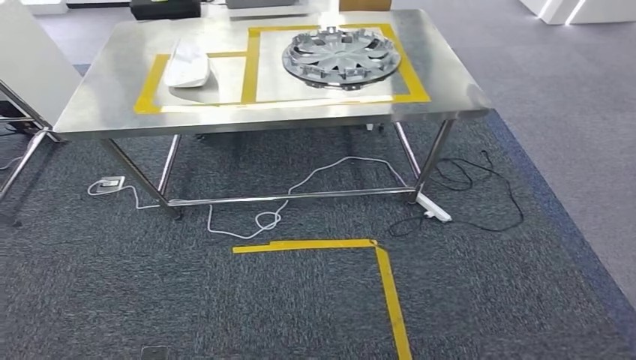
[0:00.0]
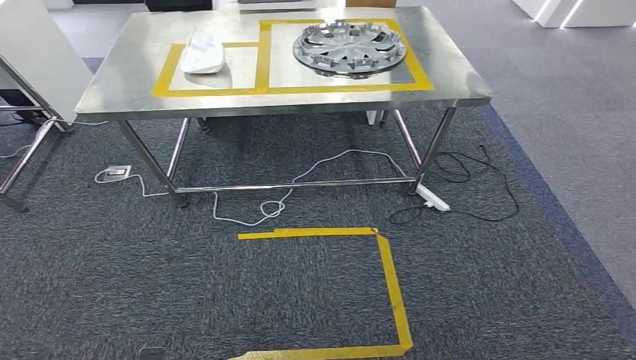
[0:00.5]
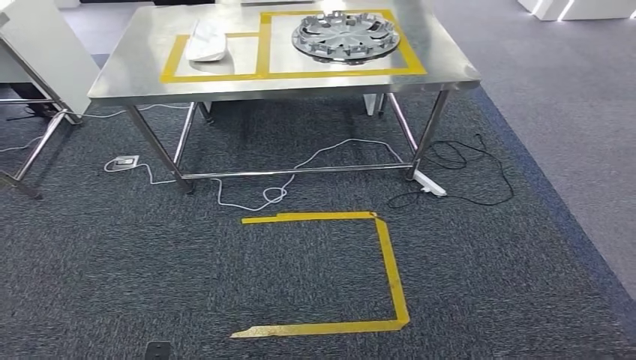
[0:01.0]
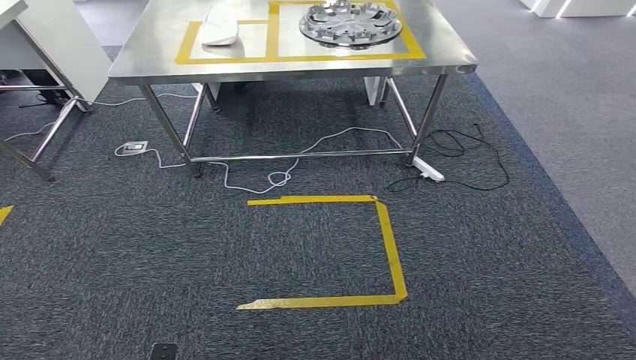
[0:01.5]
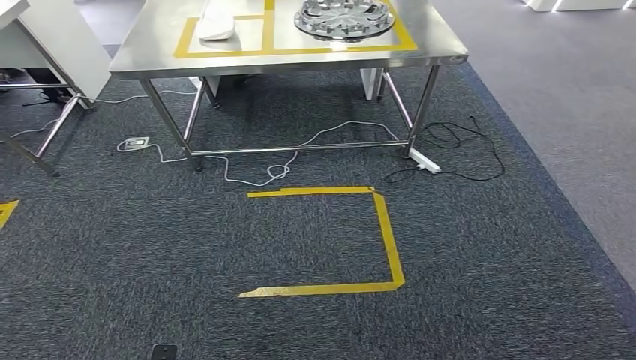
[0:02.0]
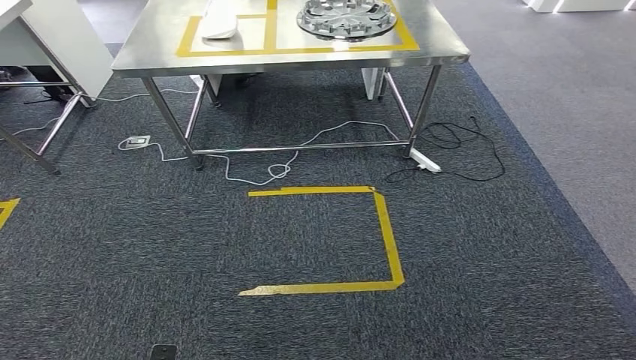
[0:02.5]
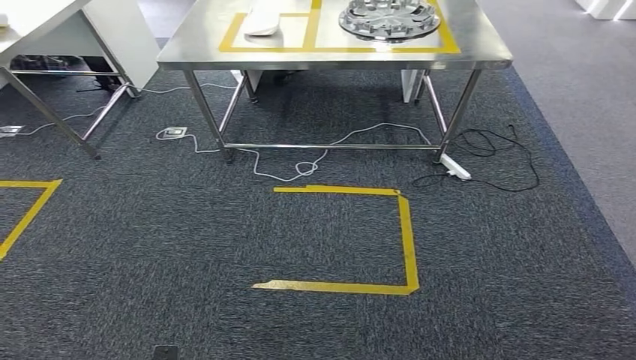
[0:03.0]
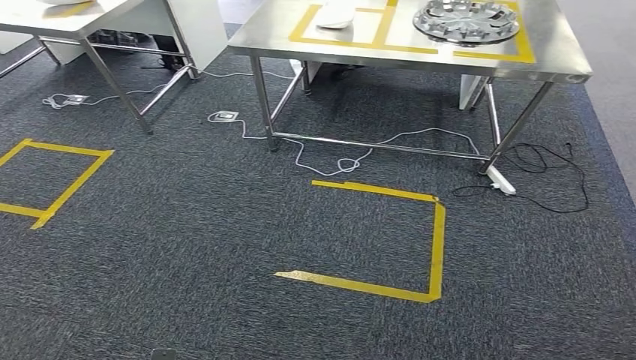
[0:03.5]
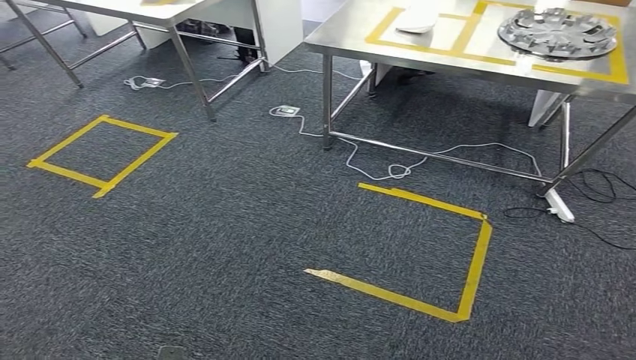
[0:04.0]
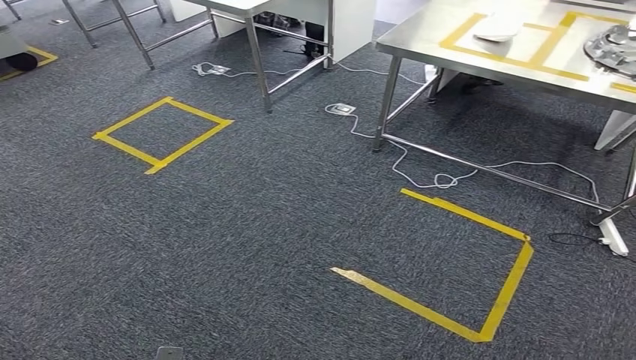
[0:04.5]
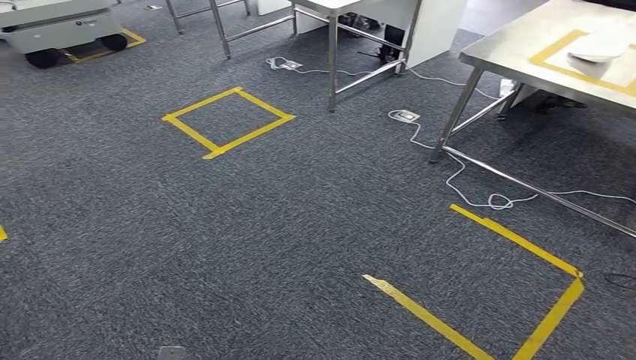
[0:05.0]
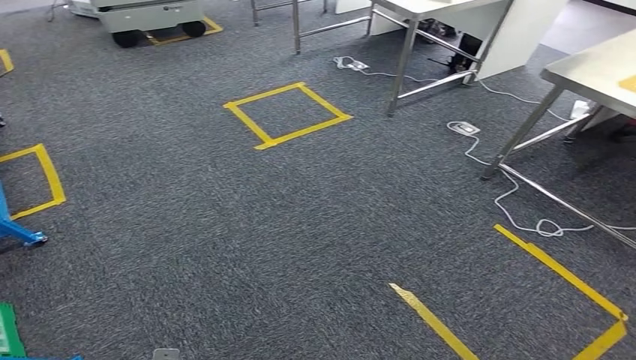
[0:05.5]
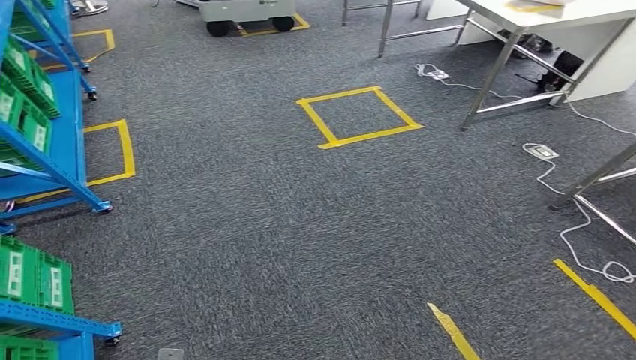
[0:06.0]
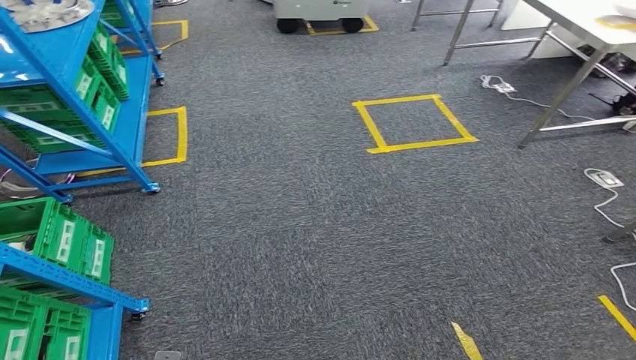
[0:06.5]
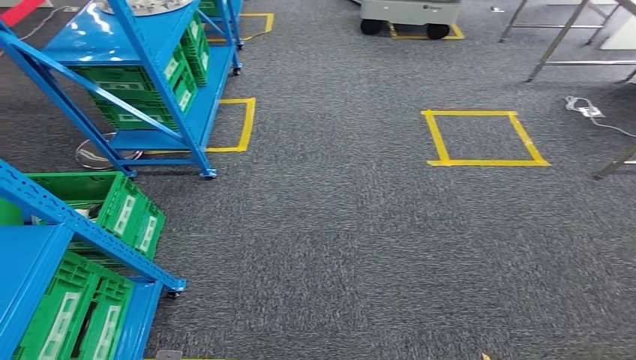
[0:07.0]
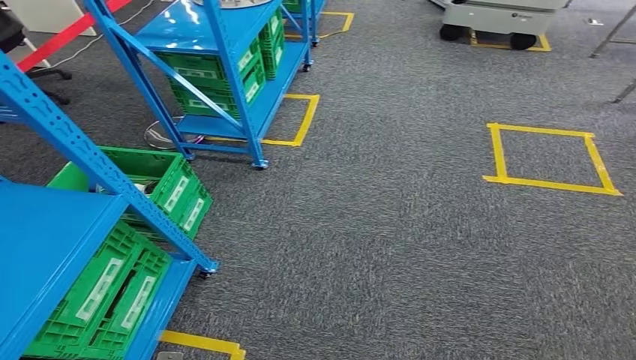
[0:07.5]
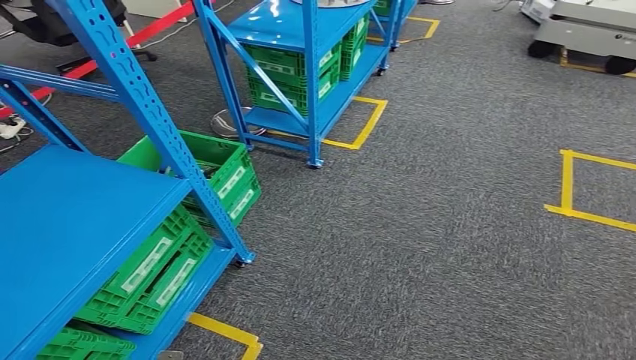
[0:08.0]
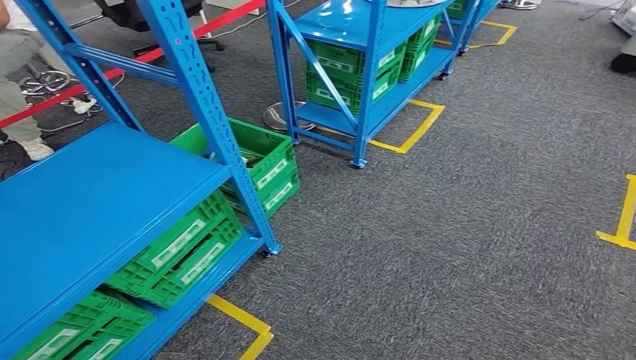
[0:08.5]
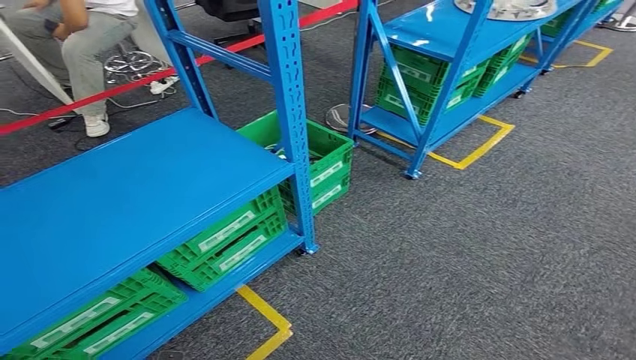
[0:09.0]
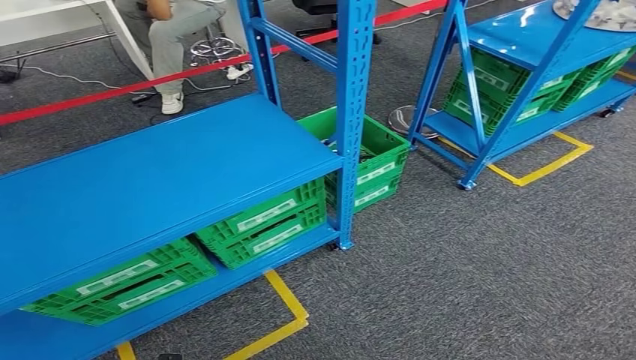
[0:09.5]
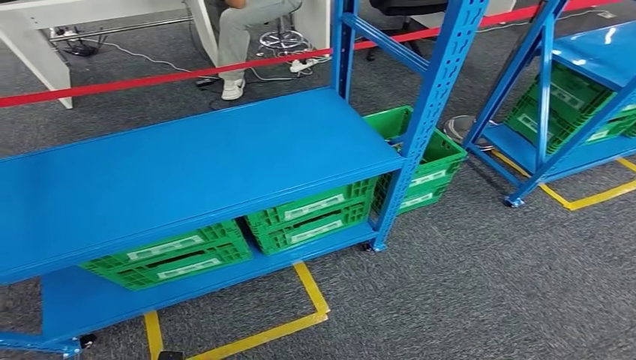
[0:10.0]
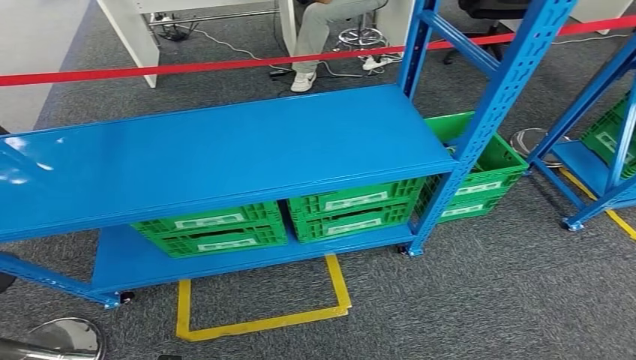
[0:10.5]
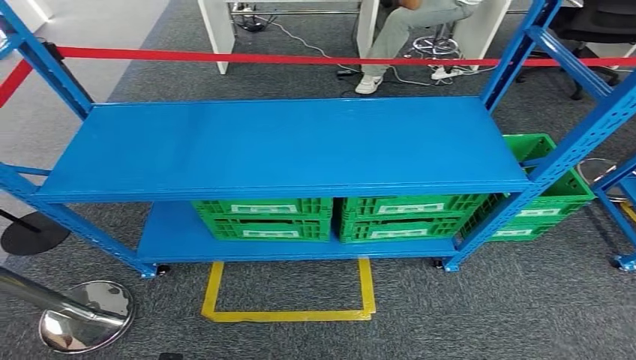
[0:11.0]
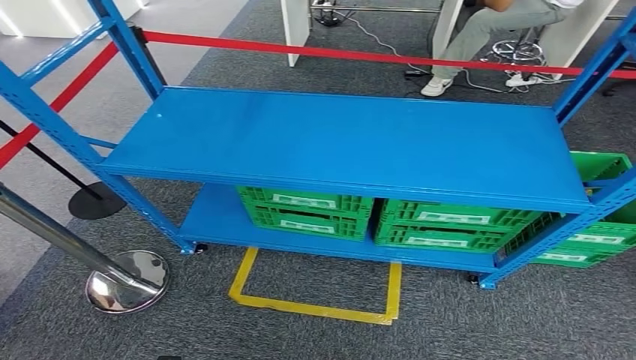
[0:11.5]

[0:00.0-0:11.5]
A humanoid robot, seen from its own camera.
Step, 0:00.0 to 0:11.5: Move to the initial position of the workbench.

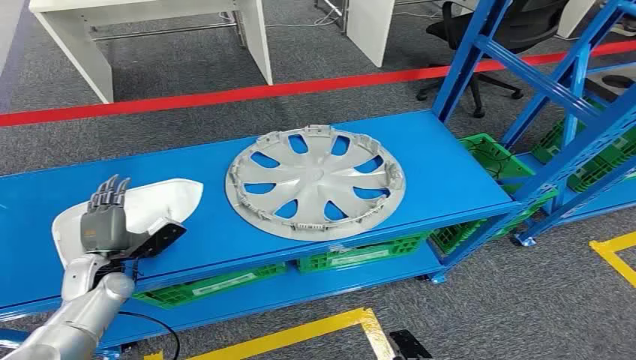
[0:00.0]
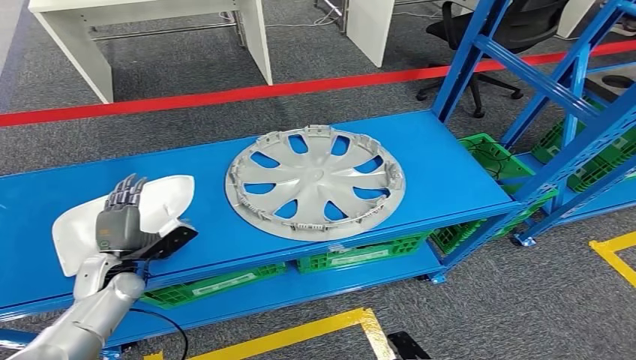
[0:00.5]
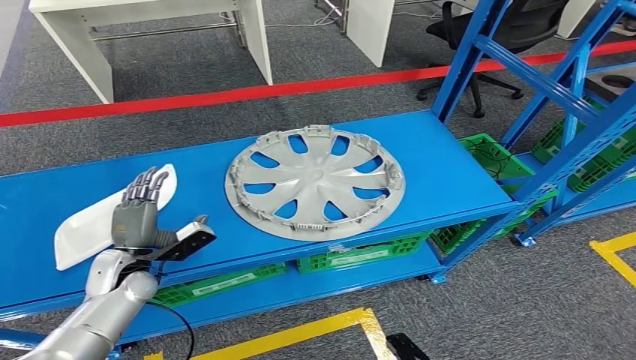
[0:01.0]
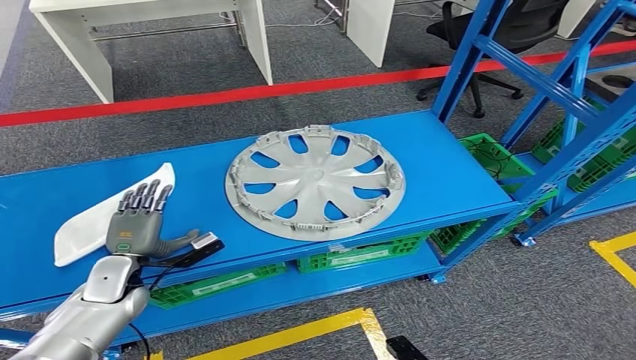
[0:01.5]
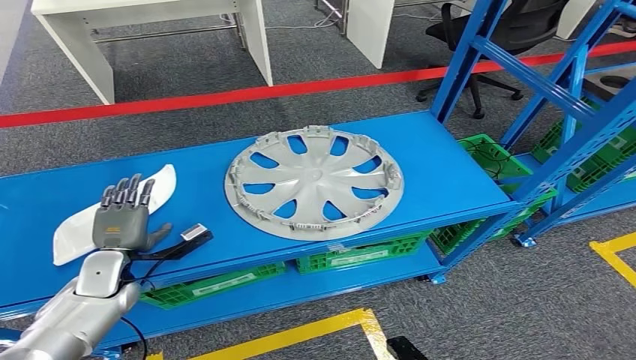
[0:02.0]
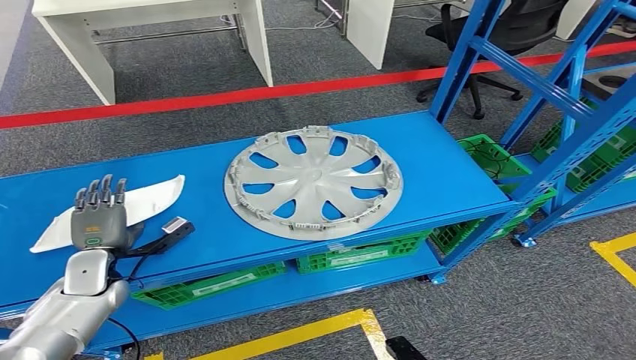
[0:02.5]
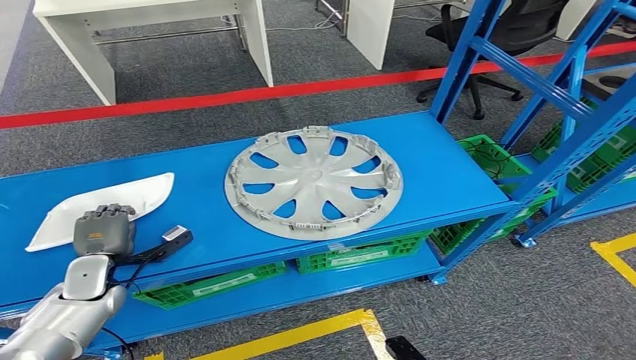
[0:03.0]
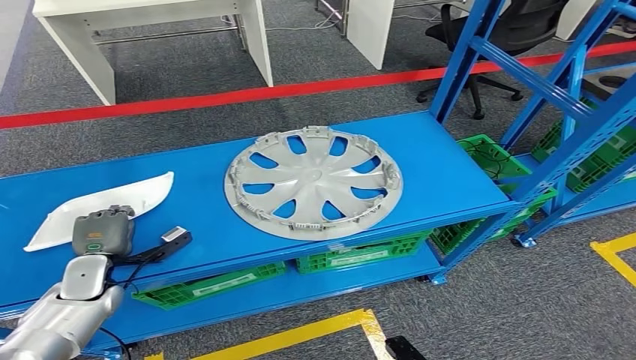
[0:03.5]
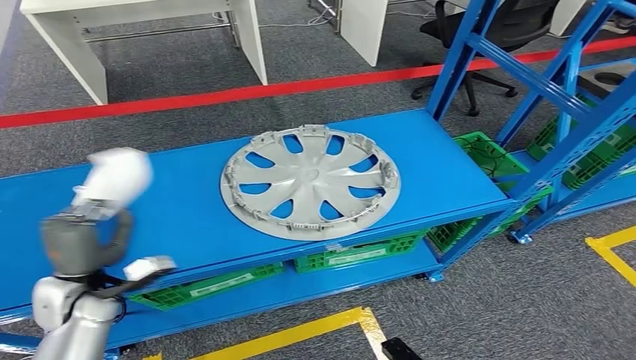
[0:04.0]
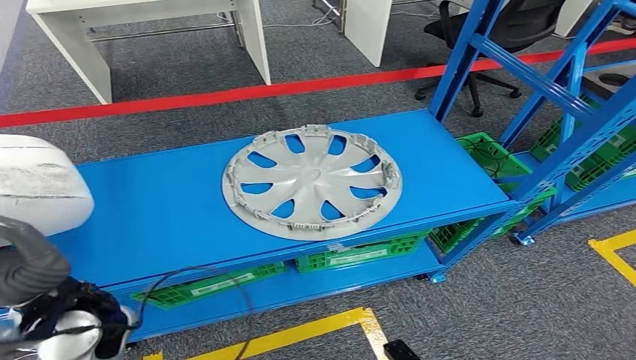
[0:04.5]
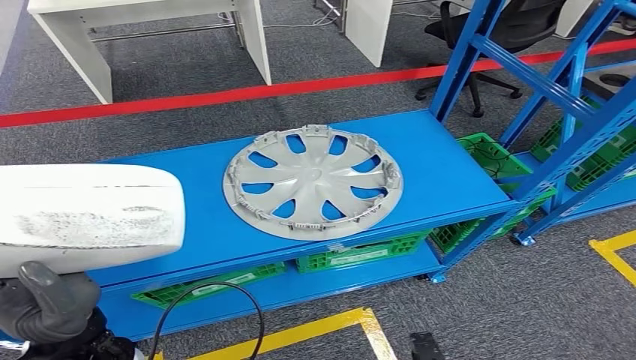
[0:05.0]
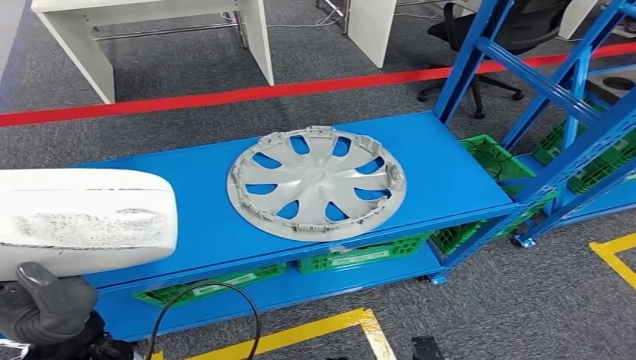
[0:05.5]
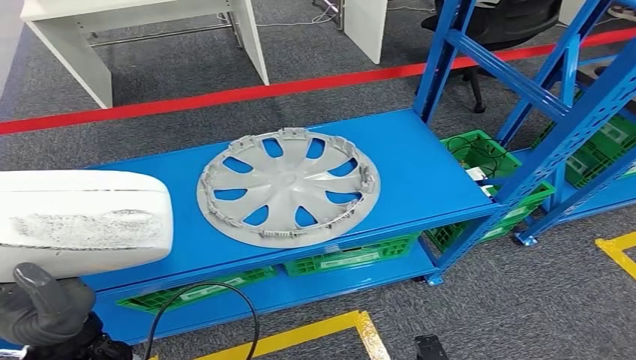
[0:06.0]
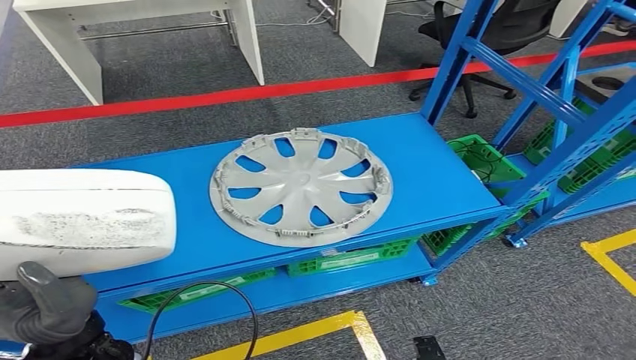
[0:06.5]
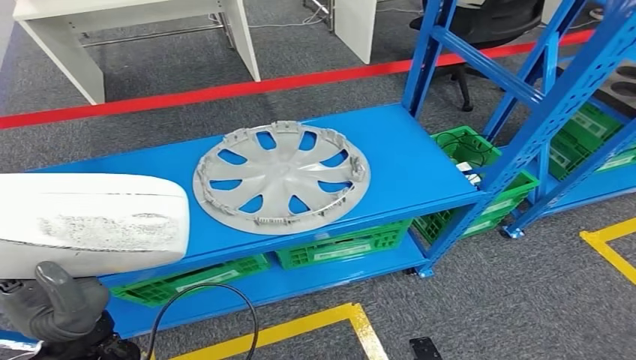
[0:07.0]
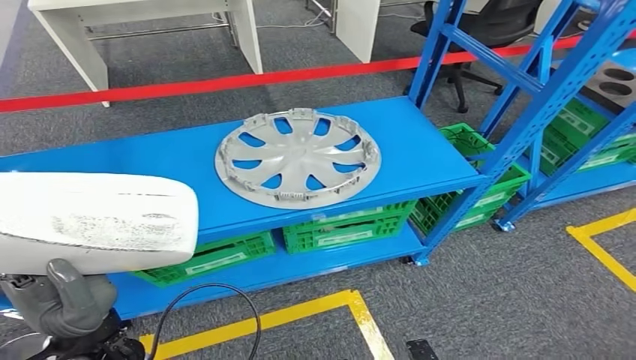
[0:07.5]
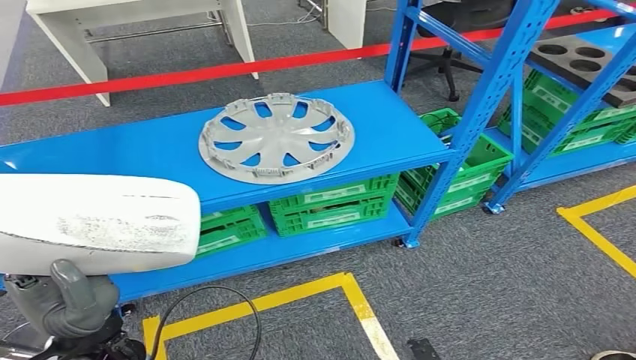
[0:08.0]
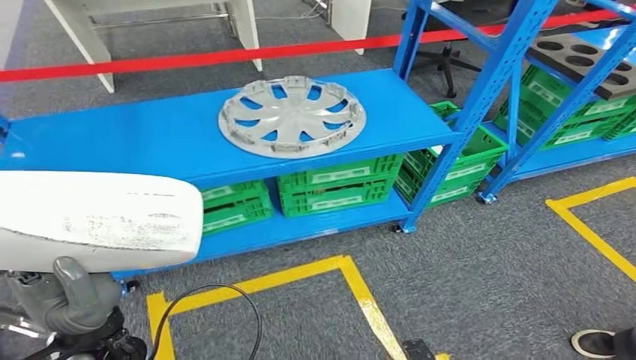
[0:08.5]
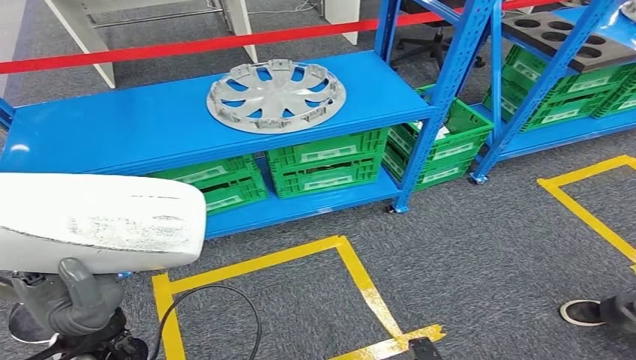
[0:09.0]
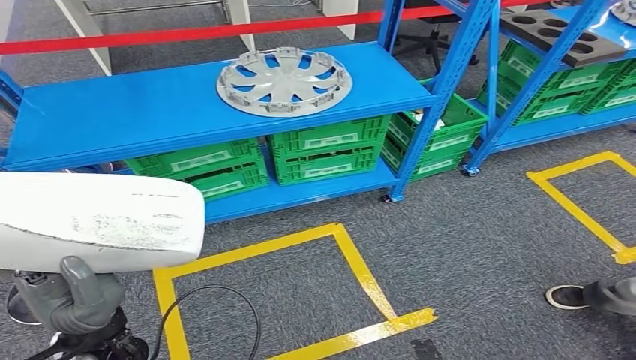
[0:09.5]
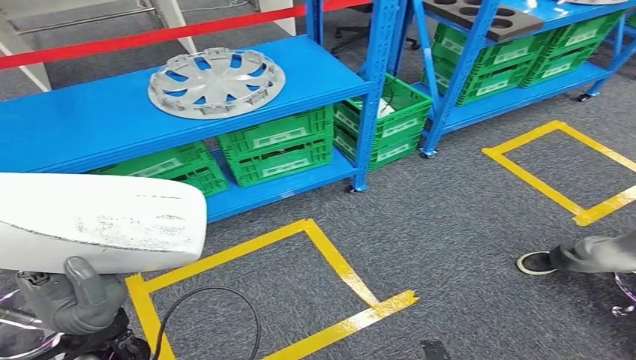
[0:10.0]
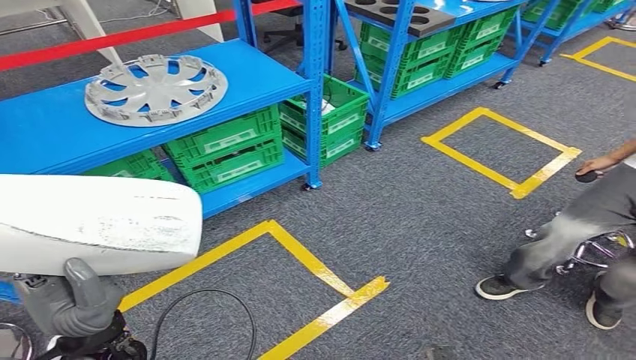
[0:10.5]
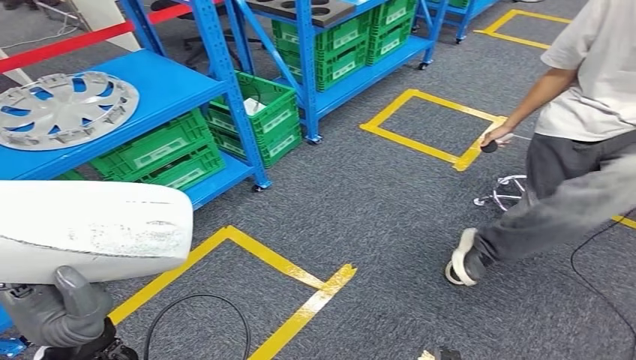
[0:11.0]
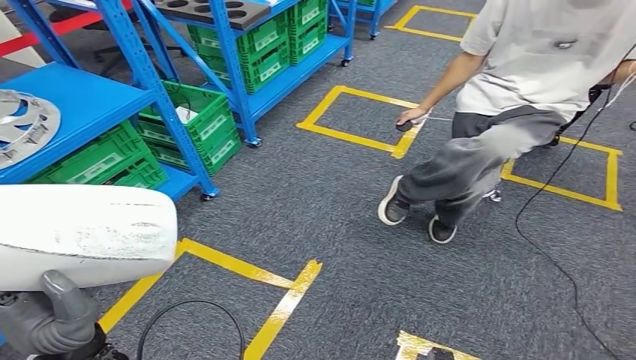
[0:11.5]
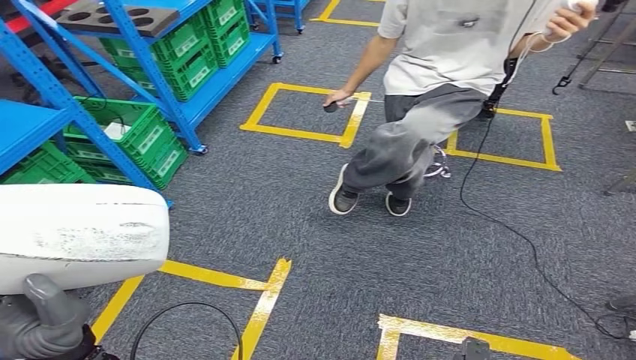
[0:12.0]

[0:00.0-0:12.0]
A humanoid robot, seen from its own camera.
Step, 0:00.0 to 0:04.0: Take small components from the rack.
